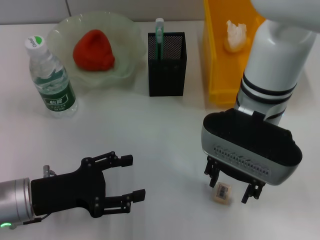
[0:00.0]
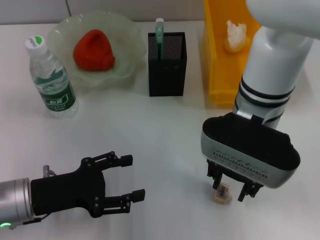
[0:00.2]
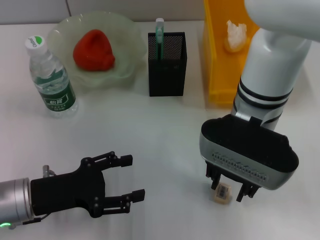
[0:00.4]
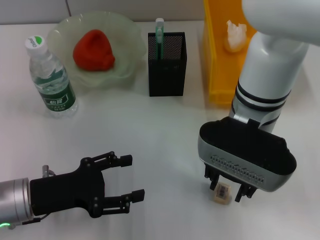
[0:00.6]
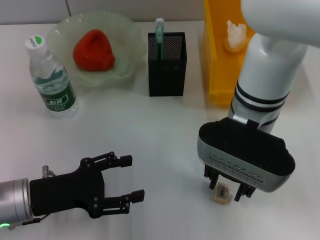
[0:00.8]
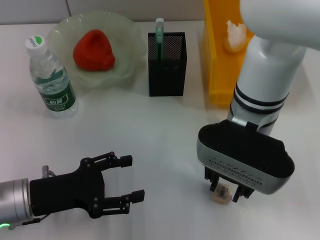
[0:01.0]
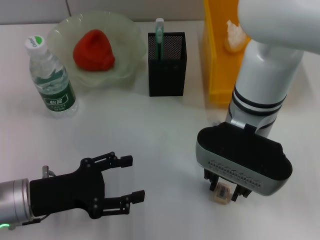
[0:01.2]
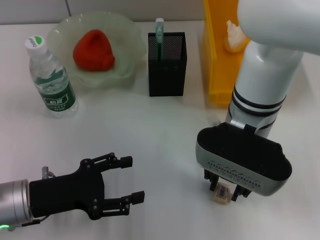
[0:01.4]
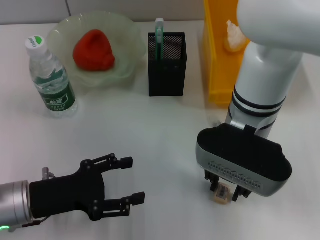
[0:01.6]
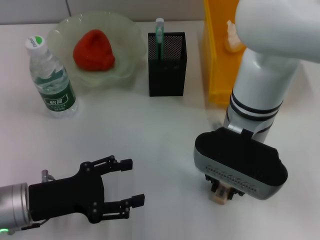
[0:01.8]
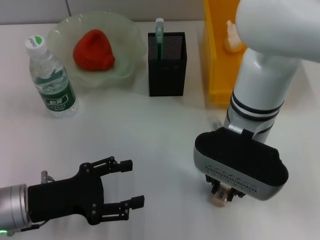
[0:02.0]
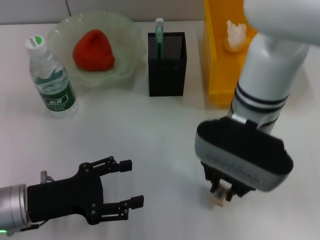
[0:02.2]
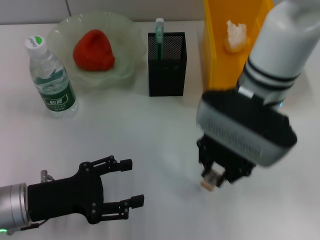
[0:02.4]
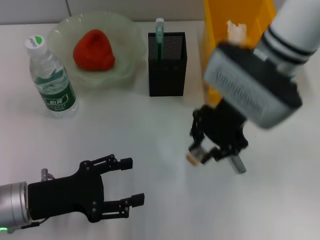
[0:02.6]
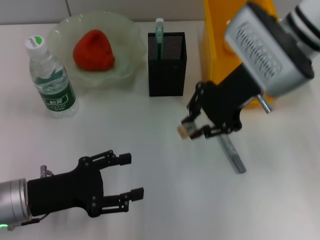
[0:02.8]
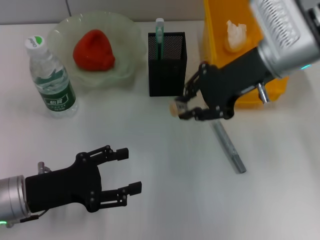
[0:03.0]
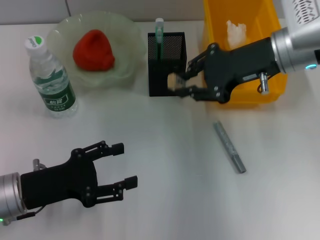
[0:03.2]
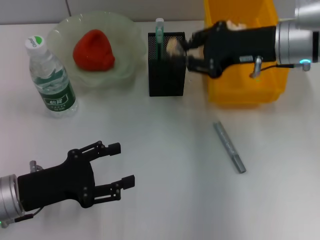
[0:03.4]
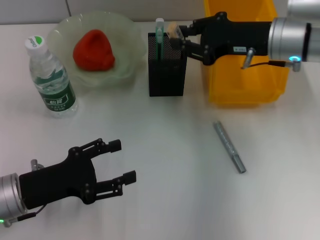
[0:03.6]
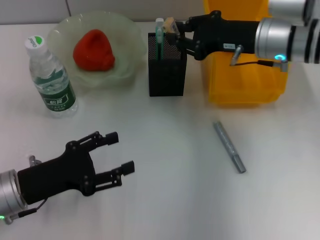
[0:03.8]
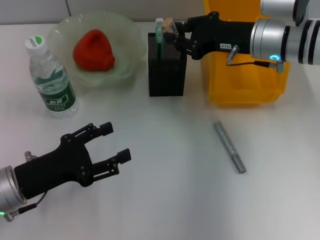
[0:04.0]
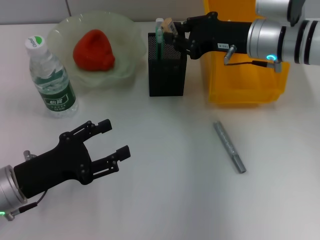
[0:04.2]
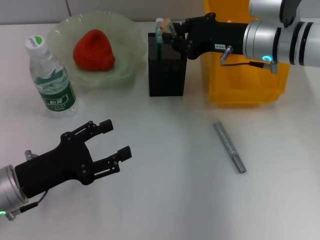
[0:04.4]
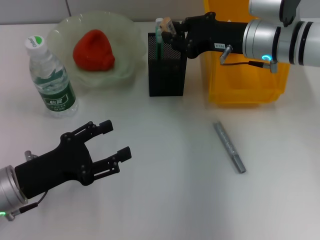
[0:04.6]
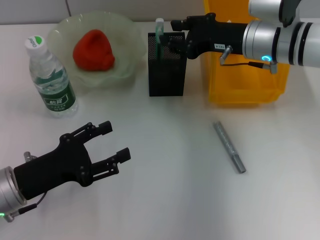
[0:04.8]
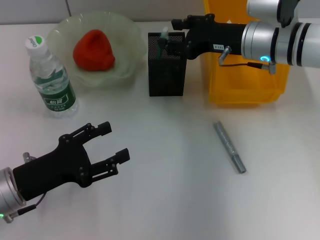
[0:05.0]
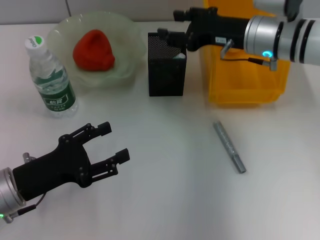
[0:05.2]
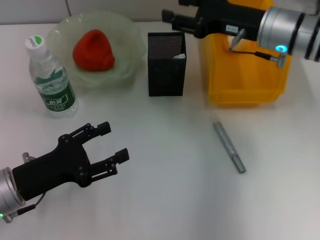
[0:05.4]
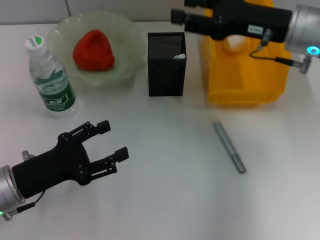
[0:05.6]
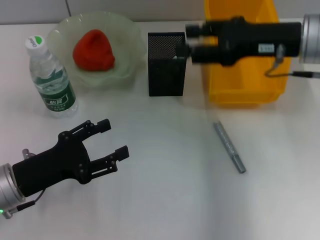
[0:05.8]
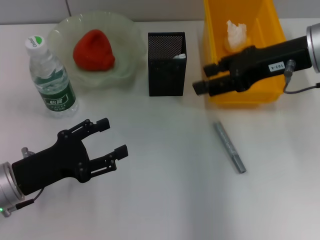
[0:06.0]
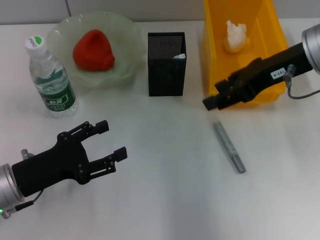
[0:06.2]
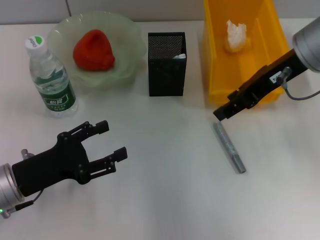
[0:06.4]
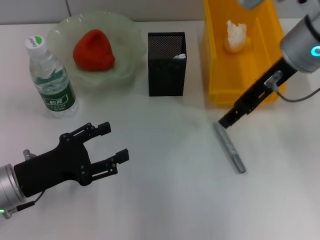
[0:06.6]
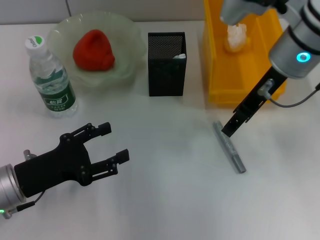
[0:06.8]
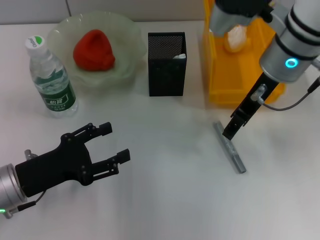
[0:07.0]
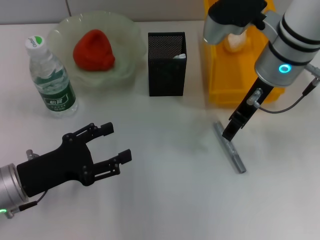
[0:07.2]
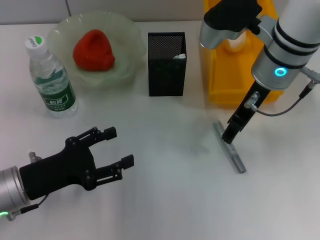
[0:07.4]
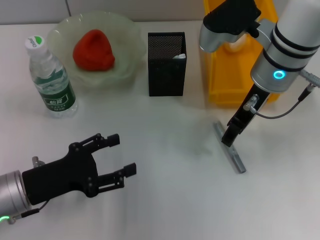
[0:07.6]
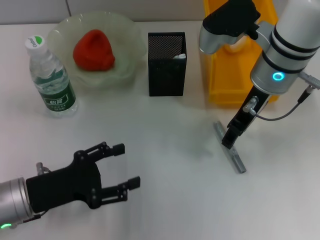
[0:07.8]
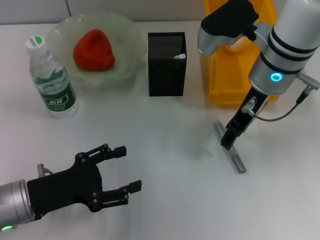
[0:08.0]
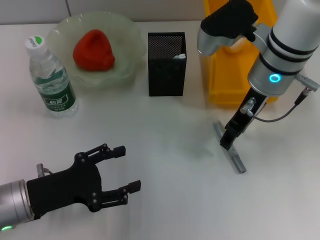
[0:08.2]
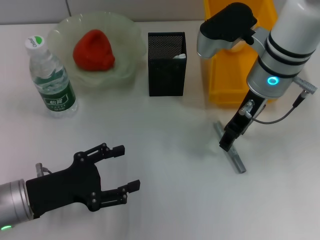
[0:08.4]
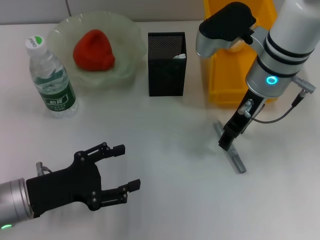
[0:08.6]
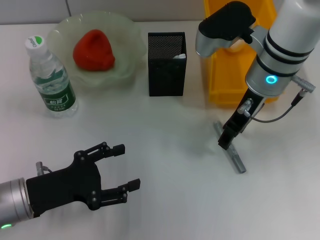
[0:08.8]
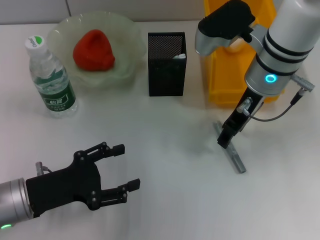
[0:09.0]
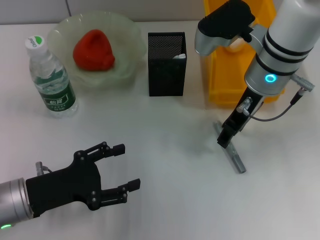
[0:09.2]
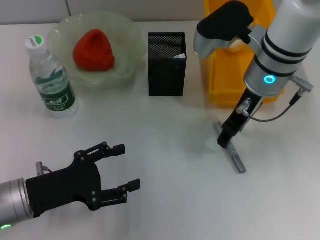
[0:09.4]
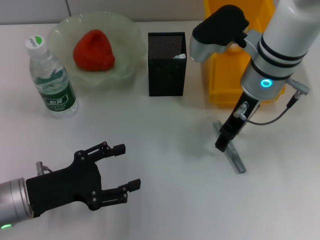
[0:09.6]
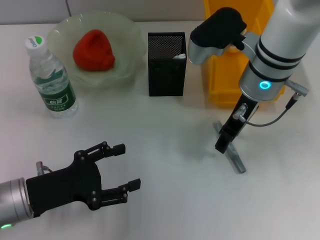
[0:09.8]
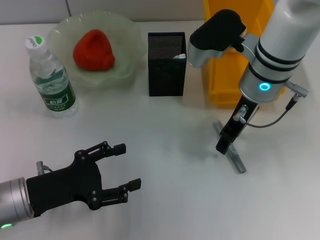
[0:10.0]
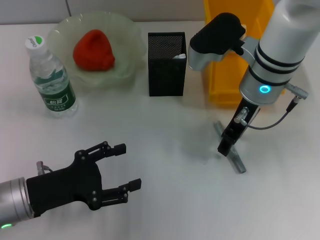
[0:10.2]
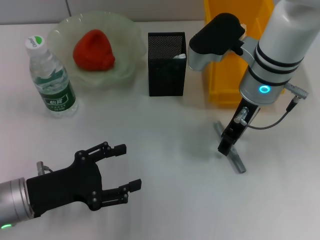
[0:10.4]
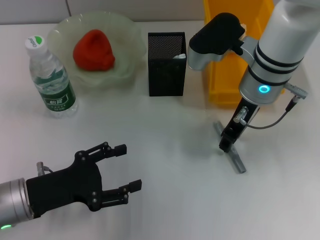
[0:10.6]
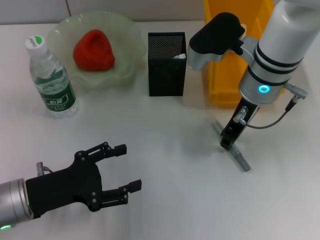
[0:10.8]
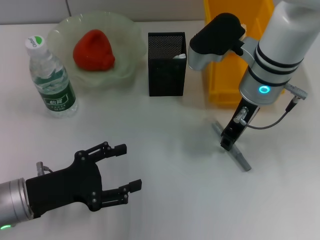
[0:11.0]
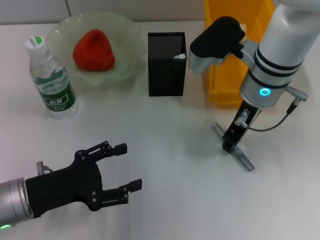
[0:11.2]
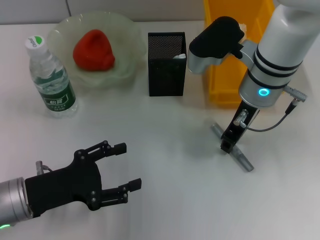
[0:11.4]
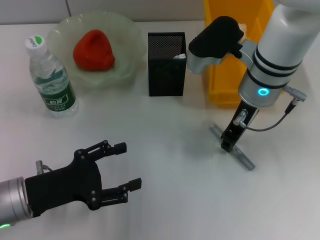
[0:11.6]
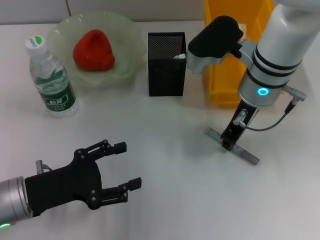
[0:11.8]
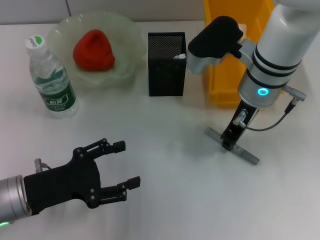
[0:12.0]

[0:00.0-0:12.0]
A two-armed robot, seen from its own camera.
Step, 0:02.0 to 0:05.0: Put the eraser into the pen holder with the right hand.
Step, 0:05.2 to 0:12.0: Grab the gray glue with the right hand.
0:00.0 to 0:01.6: The right gripper closes.
0:01.6 to 0:03.0: The right gripper shifts approximately 10 cm to the right and forward.
0:03.0 to 0:04.4: The right gripper goes about 5 cm downward.
0:04.4 to 0:06.0: The right gripper is displaced upward and backward by some 10 cm, and opens up.
0:06.0 to 0:07.6: The right gripper travels to the left by some 5 cm.
0:07.6 to 0:10.4: The grippers stay close to where they were, moving slightly.
0:10.4 to 0:12.0: The right gripper closes its fingers.

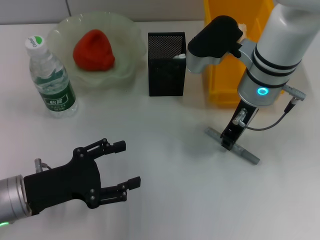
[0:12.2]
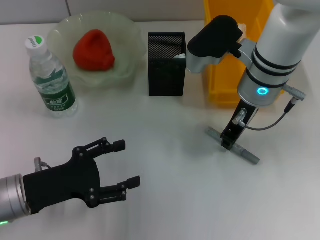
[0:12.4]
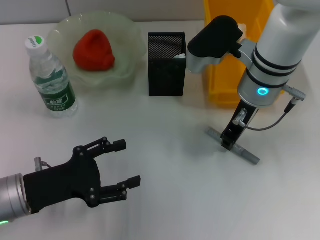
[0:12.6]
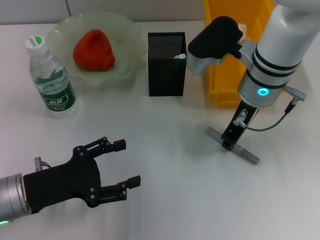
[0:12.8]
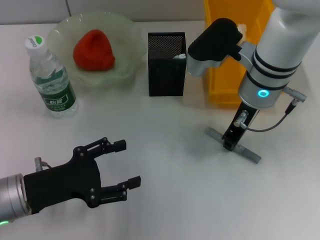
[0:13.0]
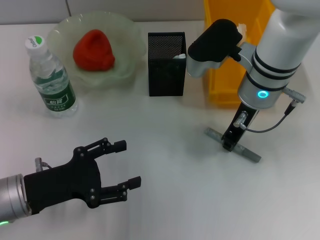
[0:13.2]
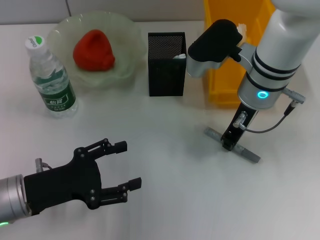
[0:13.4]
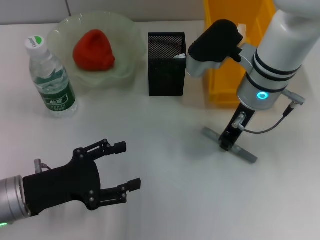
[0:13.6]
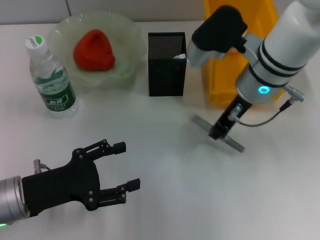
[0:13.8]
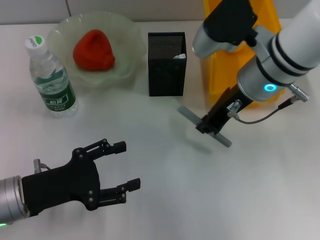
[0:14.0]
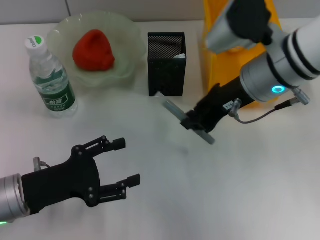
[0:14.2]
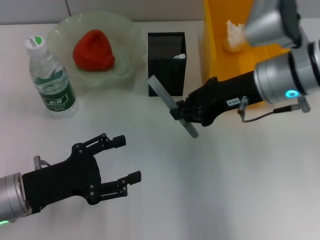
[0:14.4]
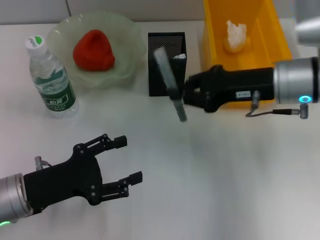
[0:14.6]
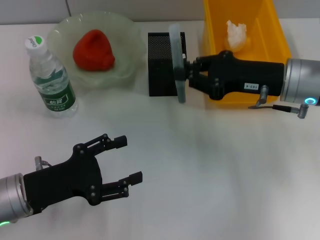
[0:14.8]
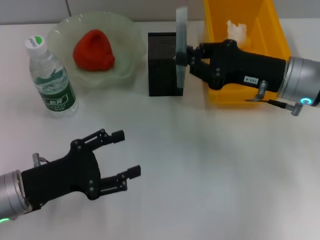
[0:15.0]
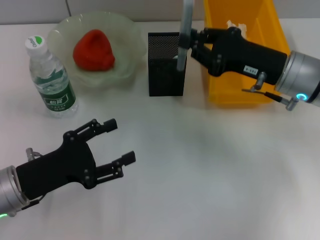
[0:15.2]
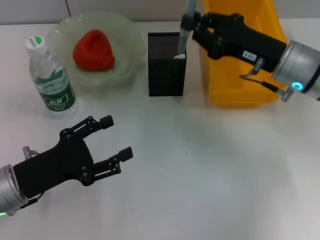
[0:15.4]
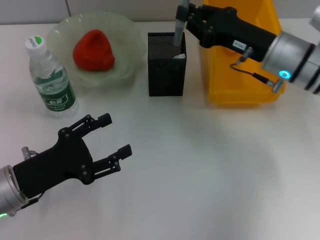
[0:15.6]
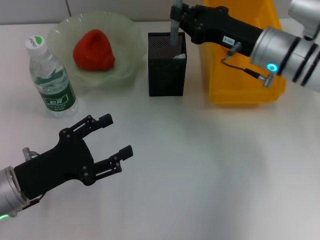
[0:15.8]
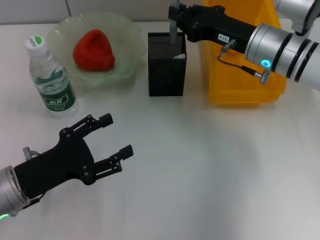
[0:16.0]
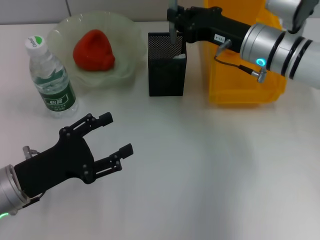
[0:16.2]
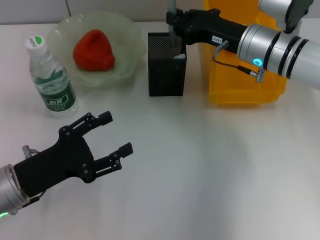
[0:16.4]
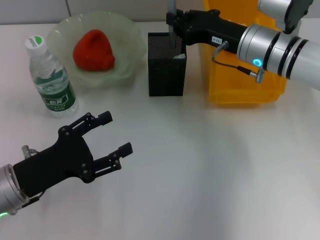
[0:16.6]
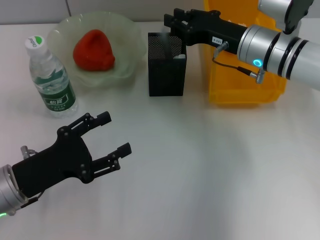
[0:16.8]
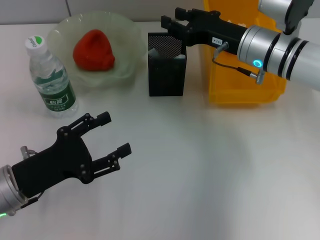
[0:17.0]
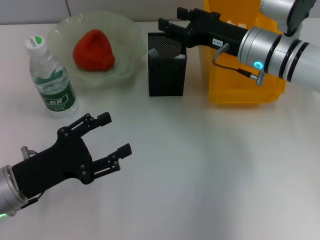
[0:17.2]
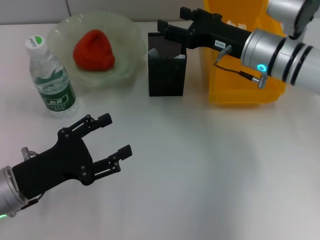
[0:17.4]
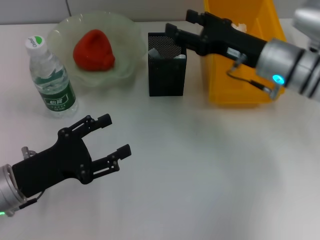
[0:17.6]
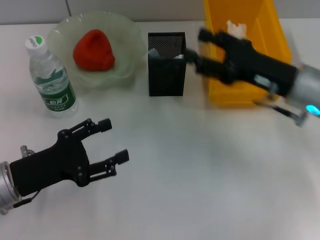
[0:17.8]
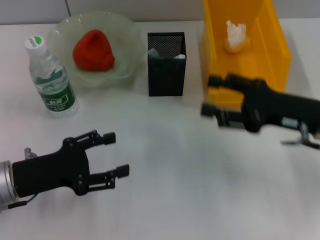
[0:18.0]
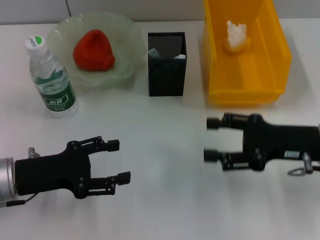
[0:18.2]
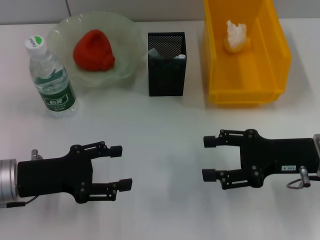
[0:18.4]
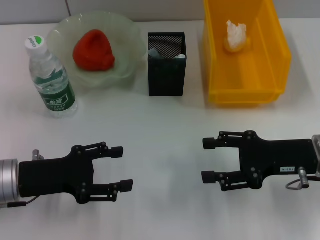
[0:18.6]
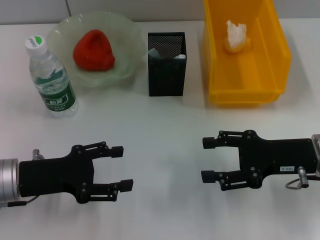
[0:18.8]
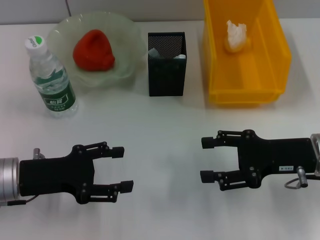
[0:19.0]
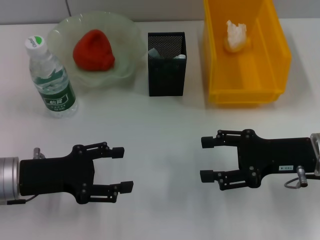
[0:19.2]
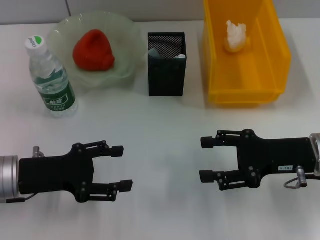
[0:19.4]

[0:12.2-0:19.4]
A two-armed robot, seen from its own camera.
Step, 0:12.2 to 0:17.2: Place the gray glue into the pen holder with the right hand.
0:12.2 to 0:13.6: The two grippers keep their place.
0:13.6 to 0:15.0: The right gripper travels to the right by approximately 10 cm.
0:15.0 to 0:16.6: The right gripper goes some 5 cm forward.
0:16.6 to 0:18.0: The right gripper travels backward and to the right by about 15 cm, and opens up.
0:18.0 to 0:19.4: There are only small adjustments of the grippers.

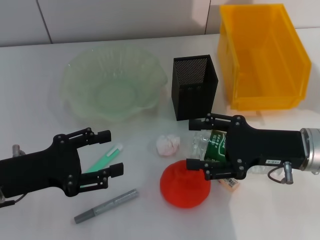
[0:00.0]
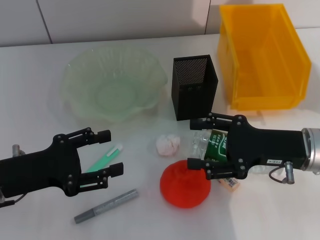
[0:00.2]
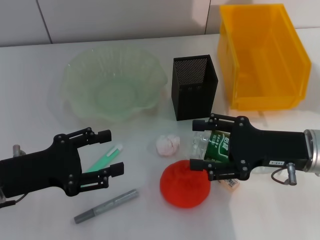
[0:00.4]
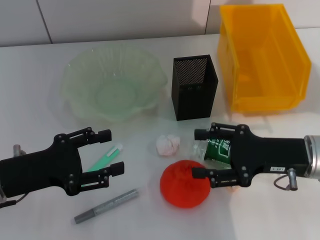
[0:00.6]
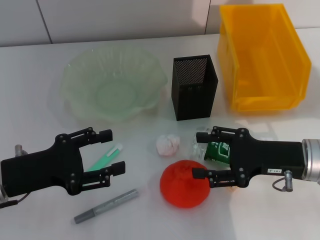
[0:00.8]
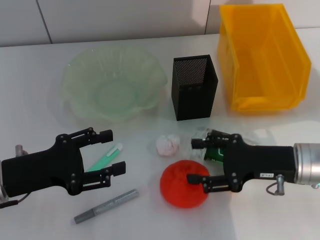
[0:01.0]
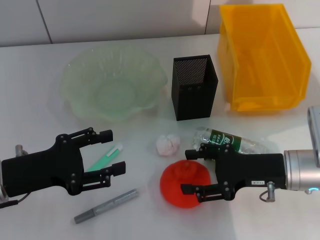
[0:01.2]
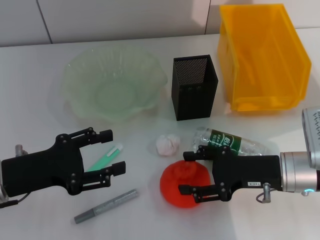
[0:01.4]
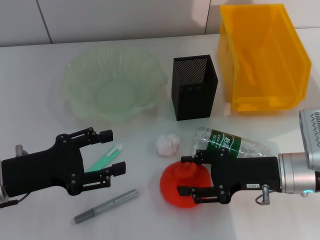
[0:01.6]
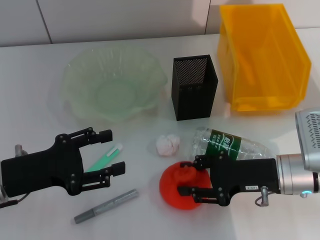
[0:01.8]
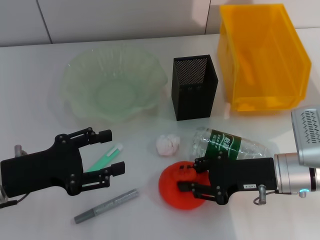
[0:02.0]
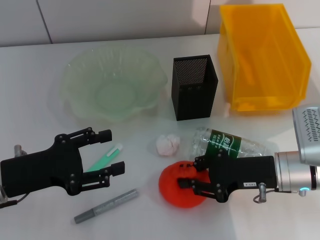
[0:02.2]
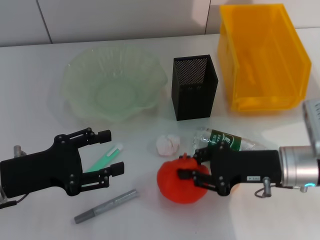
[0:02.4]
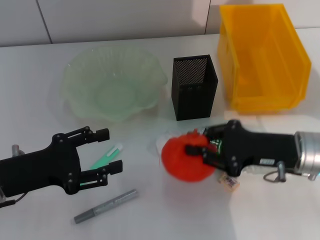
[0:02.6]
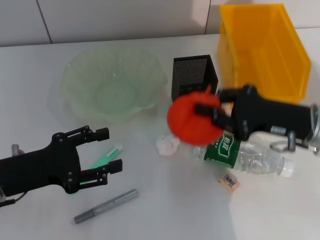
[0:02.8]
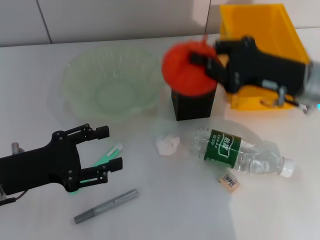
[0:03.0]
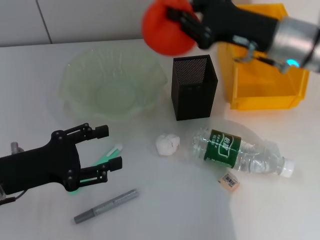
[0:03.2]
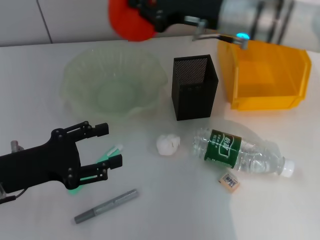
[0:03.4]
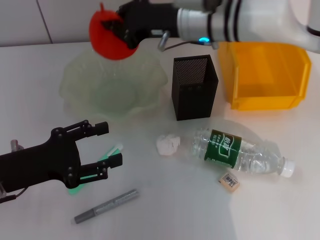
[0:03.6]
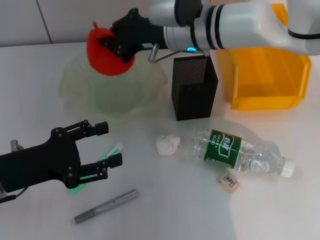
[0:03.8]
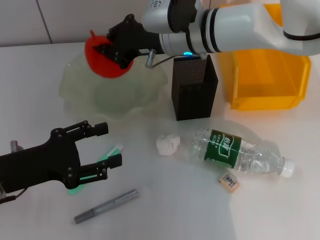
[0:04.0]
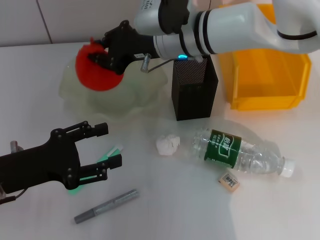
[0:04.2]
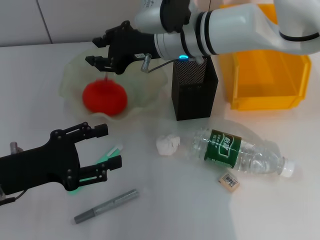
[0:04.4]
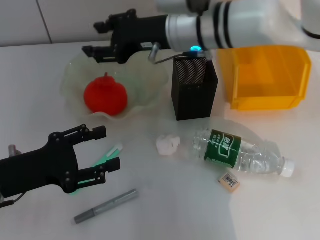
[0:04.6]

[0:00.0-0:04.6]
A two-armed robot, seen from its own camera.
Step, 0:00.0 to 0:02.2: Grab the orange with the right hand.
Step, 0:02.4 to 0:04.4: Place the orange into the fruit bowl with the right hand.
0:00.0 to 0:01.6: The grippers stay close to where they were, moving slightly.
0:01.6 to 0:03.0: The right gripper heads upward and forward, covering roughly 10 cm, and closes its fingers.
0:03.0 to 0:04.6: The right gripper goes roughly 20 cm to the left and forward, and opens.
